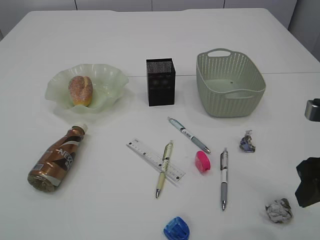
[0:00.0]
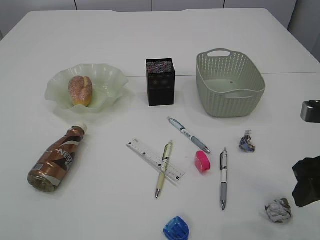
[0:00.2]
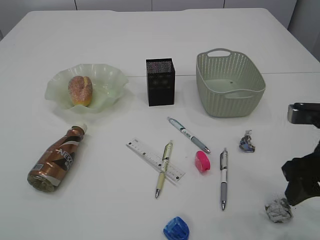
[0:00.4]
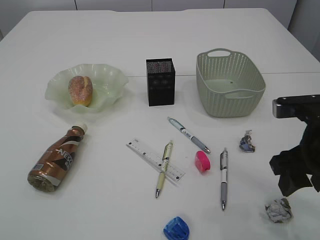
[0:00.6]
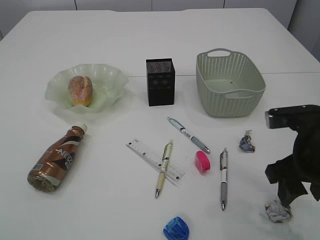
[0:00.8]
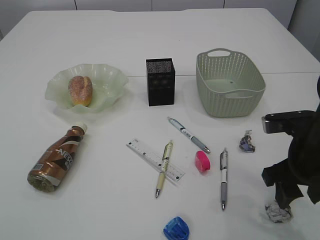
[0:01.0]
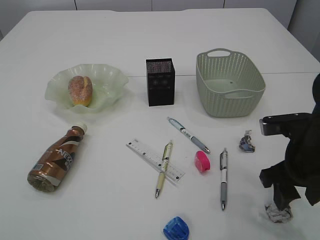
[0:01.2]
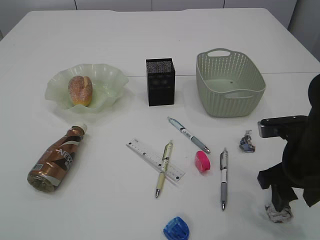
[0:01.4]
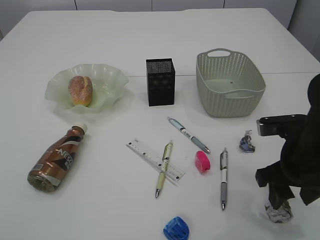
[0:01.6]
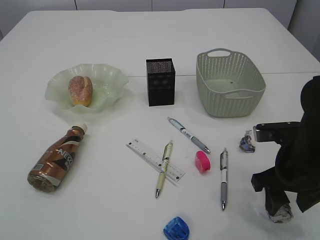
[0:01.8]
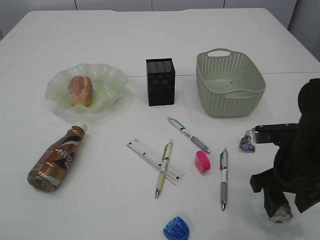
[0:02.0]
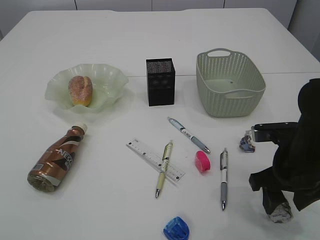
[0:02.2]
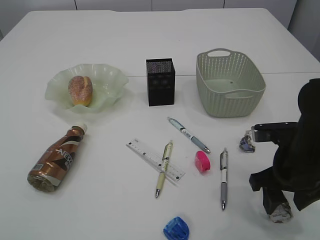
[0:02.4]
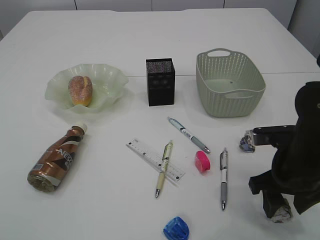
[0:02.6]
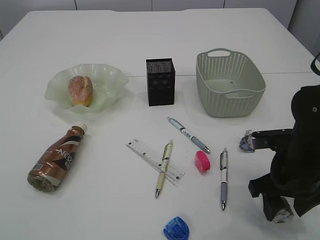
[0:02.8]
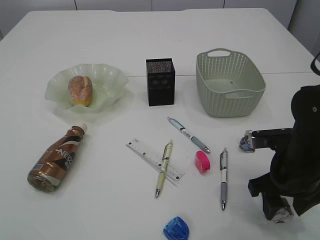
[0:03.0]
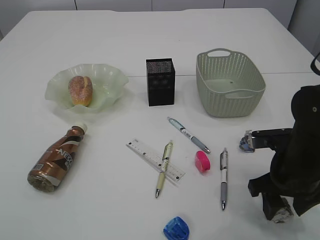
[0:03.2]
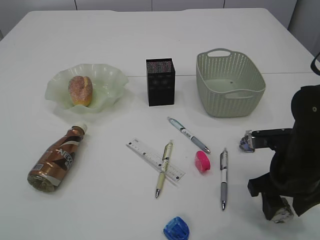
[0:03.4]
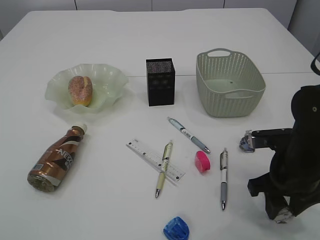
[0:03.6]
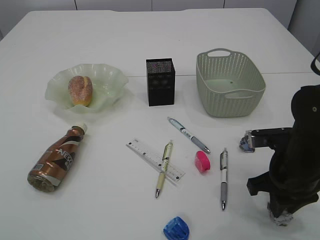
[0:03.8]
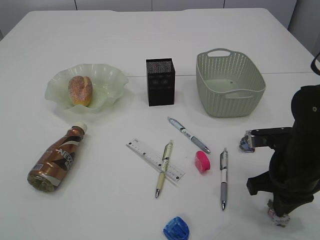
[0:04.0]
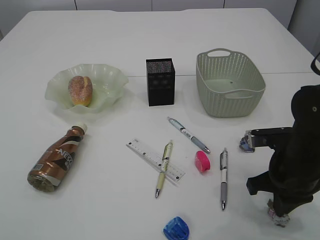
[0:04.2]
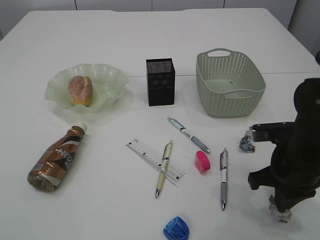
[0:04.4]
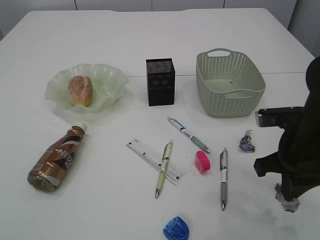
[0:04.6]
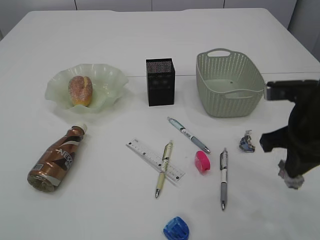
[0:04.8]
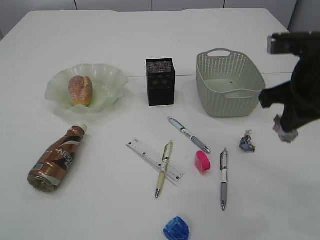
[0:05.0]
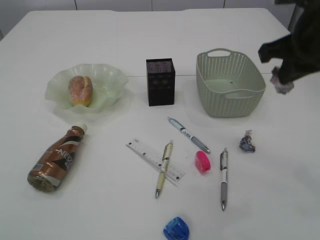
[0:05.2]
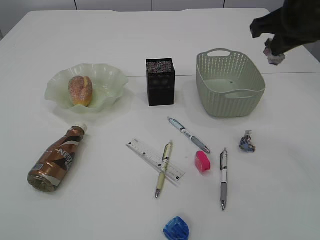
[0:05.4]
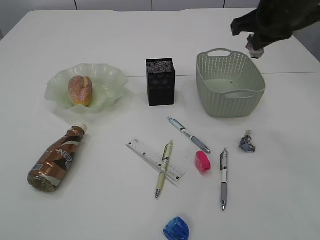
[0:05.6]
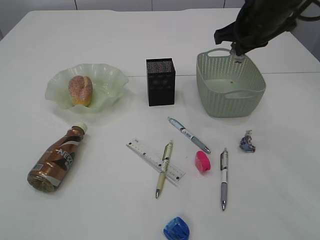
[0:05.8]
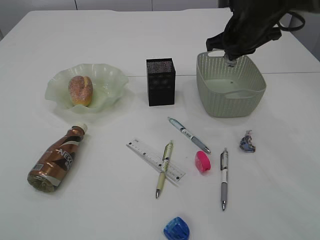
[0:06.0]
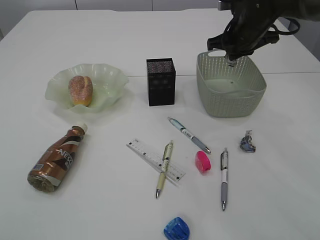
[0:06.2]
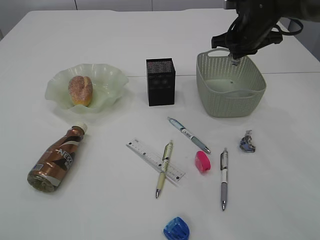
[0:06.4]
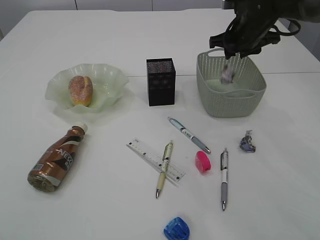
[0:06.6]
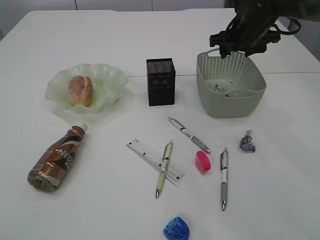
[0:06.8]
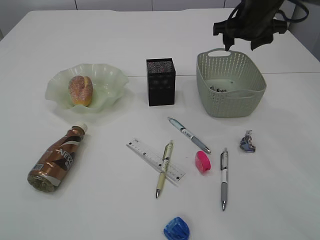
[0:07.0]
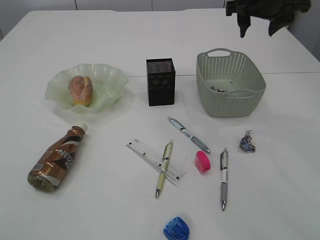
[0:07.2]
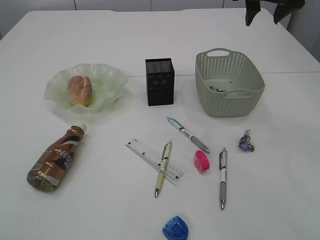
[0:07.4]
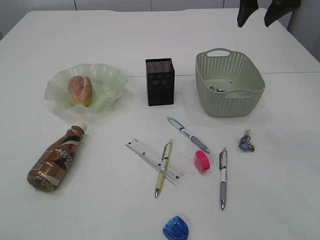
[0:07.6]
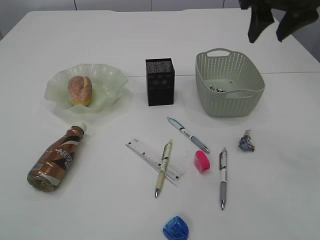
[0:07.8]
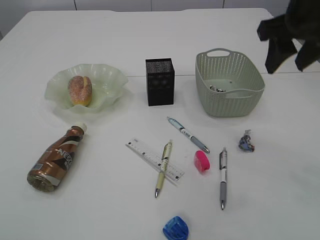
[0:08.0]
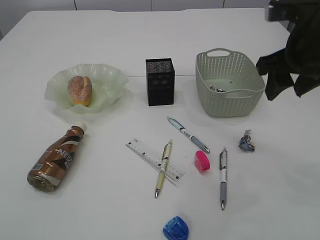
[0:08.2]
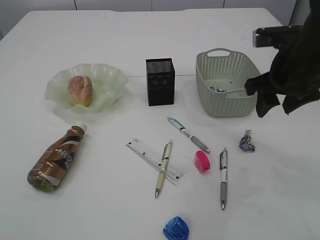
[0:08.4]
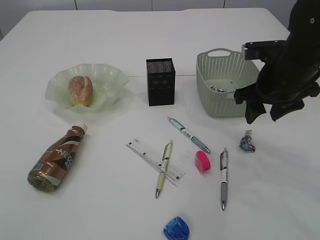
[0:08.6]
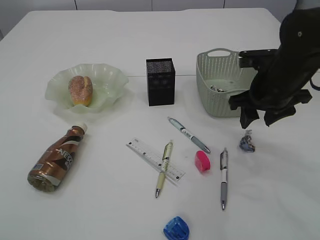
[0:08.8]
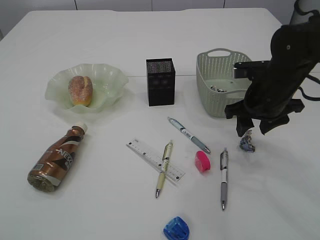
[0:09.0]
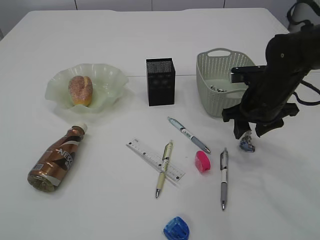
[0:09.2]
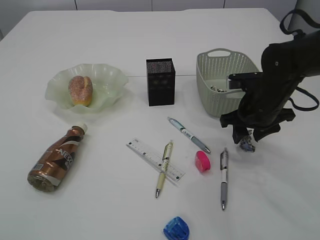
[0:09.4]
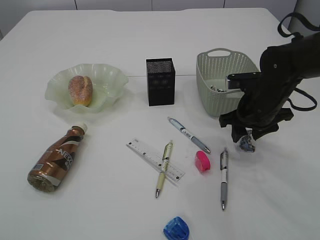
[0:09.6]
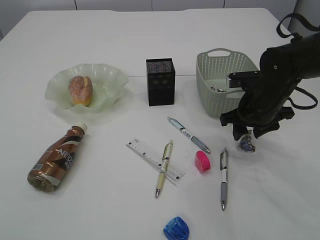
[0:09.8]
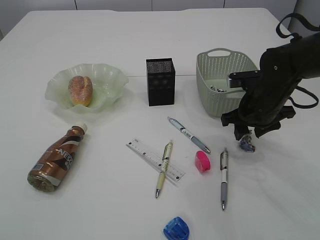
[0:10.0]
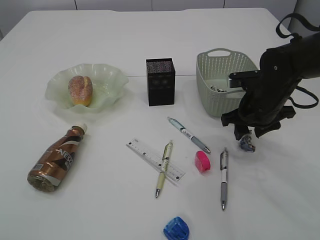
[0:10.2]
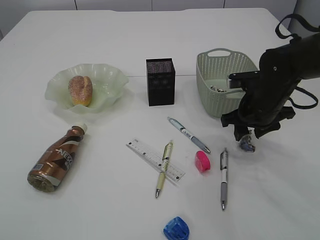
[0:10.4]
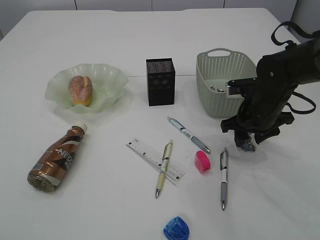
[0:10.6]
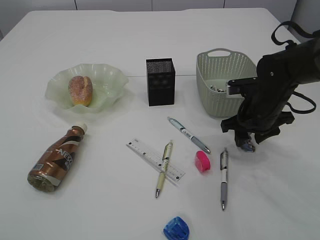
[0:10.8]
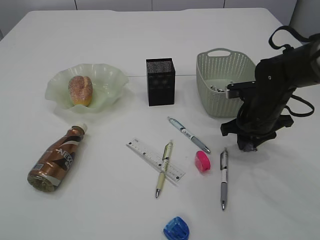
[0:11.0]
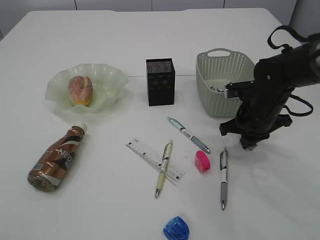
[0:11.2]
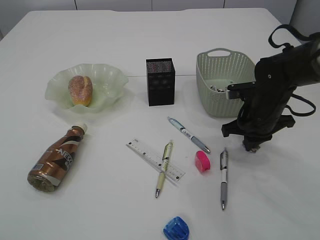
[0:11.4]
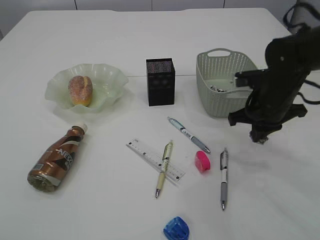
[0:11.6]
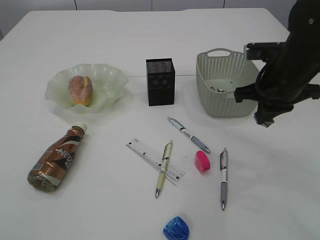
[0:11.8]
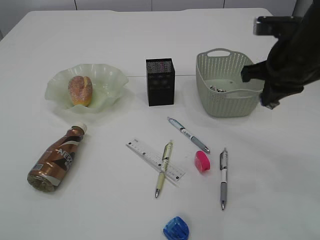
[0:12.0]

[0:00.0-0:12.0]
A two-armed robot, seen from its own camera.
Step, 0:00.0 to 0:04.8: Pick up the waste paper.
Step, 0:05.0 to 0:07.0: Place the waste paper in the basket.
Step, 0:07.2 to 0:11.8: Pick up the waste paper.
0:00.0 to 0:01.6: The right gripper moves downward and forward, roughly 10 cm.
0:01.6 to 0:03.0: The grippers make only small movements.
0:03.0 to 0:04.4: The right gripper closes its fingers.
0:04.4 to 0:06.0: The right gripper moves forward and upward, approximately 25 cm.
0:06.0 to 0:07.6: The right gripper goes approximately 10 cm upward, and opens up.
0:07.6 to 0:09.0: The right gripper shifts some 20 cm downward.
0:09.0 to 0:10.4: The grippers stay close to where they were, moving slightly.
0:10.4 to 0:12.0: The right gripper is displaced upward by roughly 10 cm, and closes up.

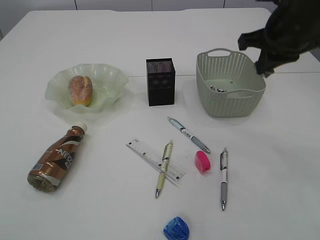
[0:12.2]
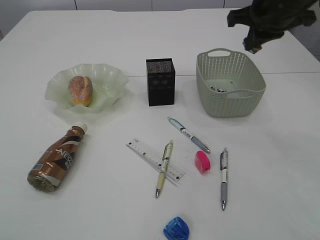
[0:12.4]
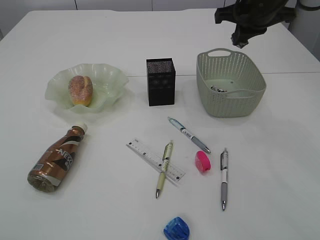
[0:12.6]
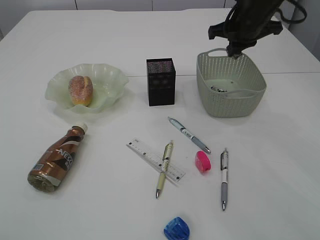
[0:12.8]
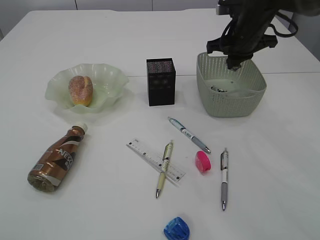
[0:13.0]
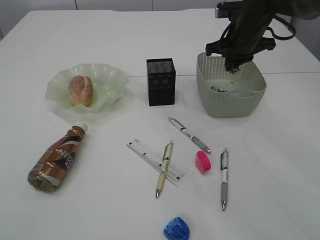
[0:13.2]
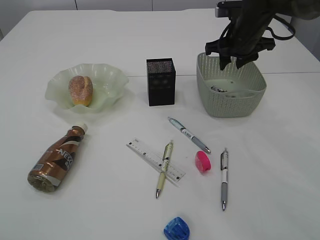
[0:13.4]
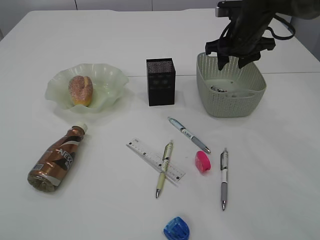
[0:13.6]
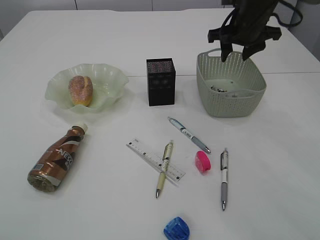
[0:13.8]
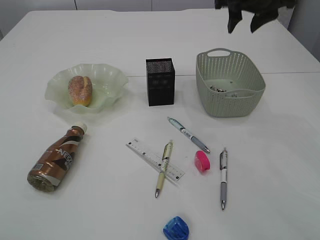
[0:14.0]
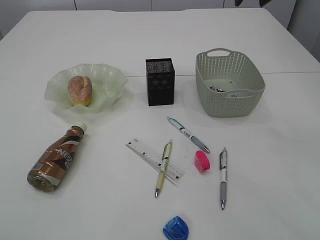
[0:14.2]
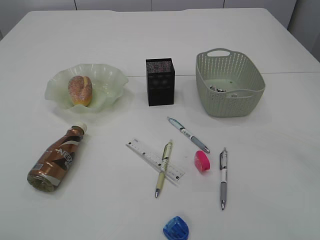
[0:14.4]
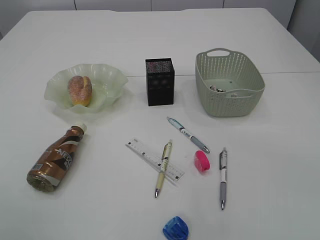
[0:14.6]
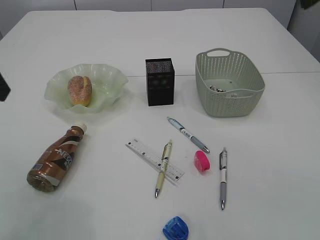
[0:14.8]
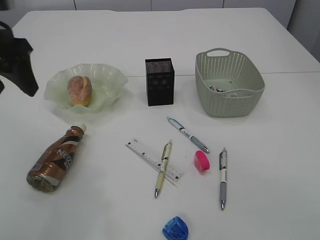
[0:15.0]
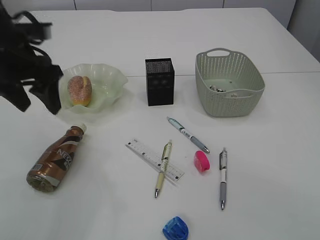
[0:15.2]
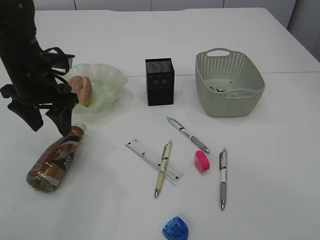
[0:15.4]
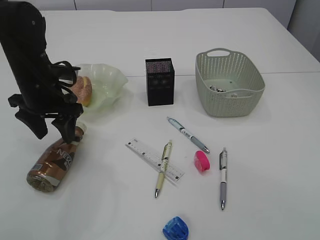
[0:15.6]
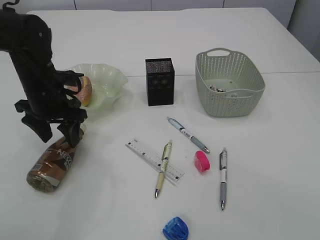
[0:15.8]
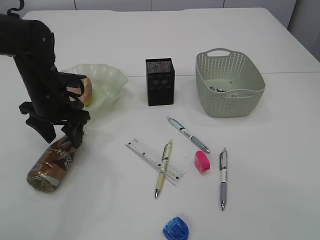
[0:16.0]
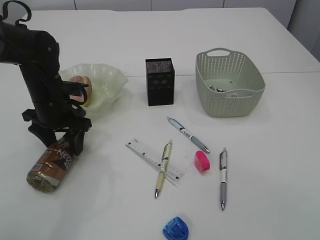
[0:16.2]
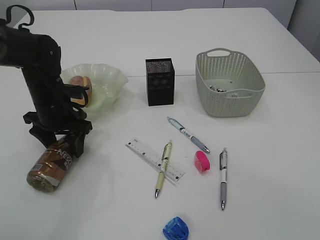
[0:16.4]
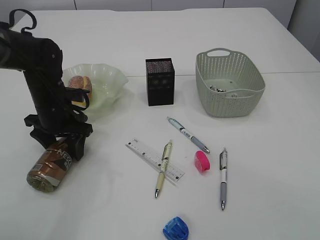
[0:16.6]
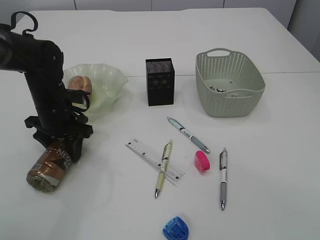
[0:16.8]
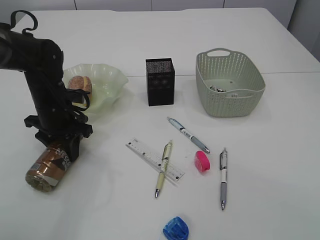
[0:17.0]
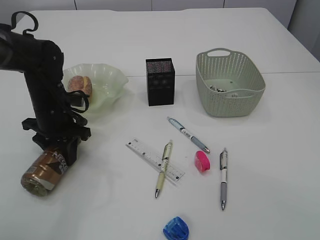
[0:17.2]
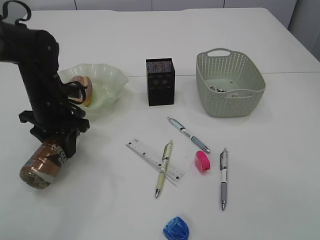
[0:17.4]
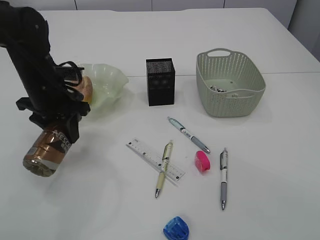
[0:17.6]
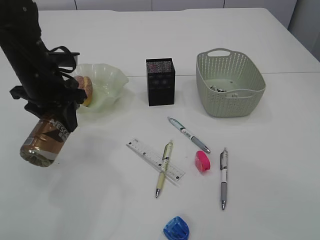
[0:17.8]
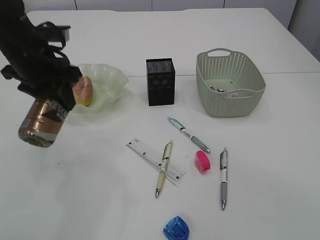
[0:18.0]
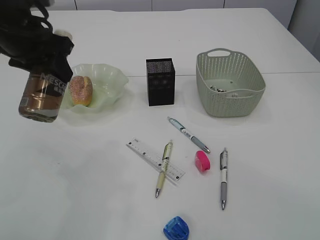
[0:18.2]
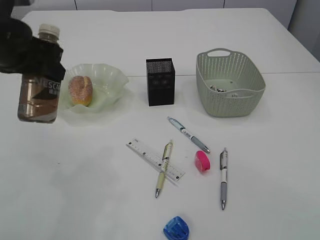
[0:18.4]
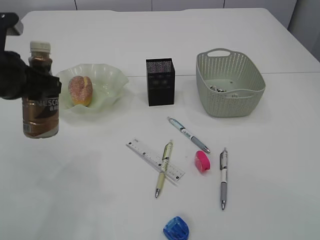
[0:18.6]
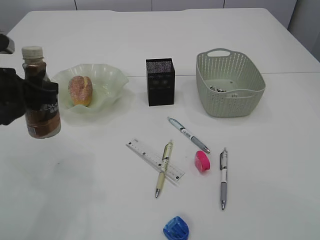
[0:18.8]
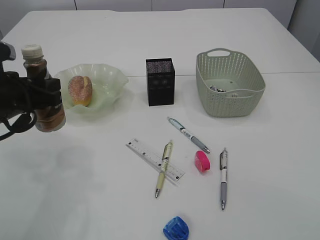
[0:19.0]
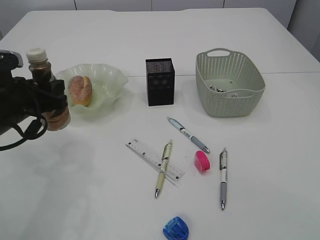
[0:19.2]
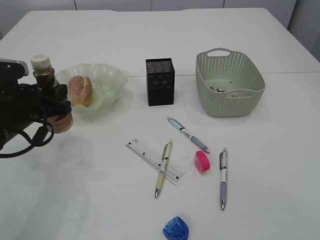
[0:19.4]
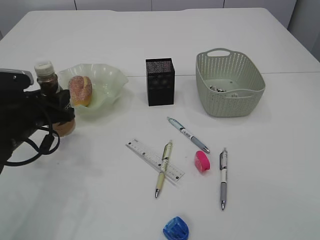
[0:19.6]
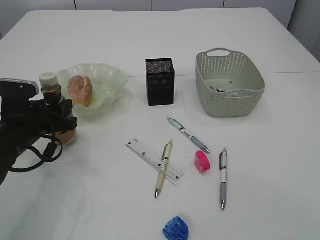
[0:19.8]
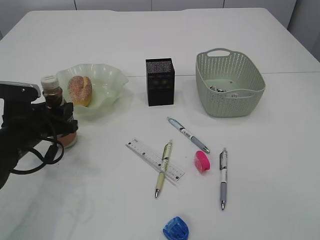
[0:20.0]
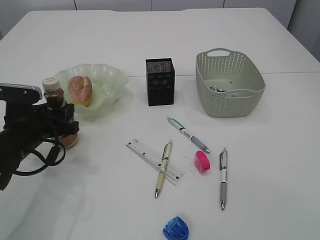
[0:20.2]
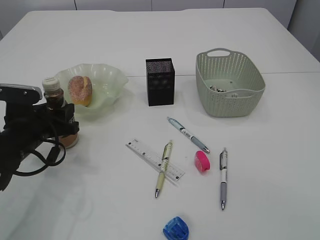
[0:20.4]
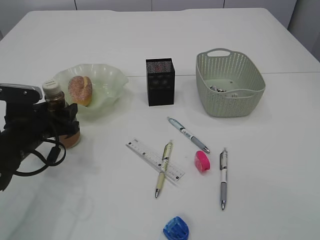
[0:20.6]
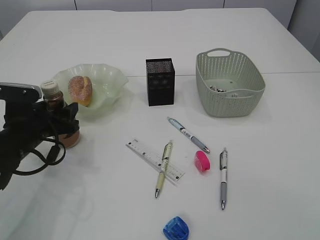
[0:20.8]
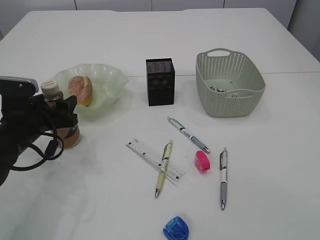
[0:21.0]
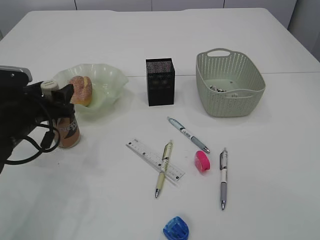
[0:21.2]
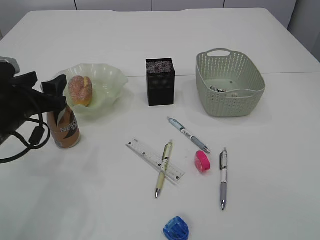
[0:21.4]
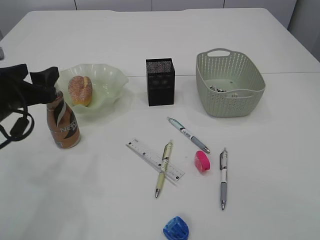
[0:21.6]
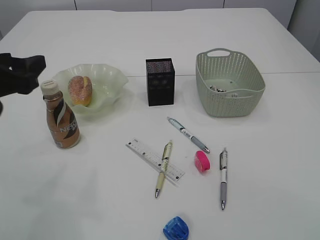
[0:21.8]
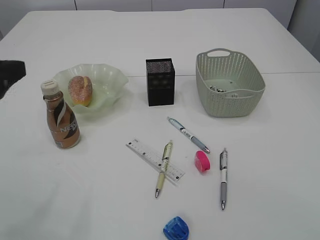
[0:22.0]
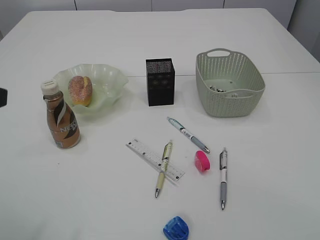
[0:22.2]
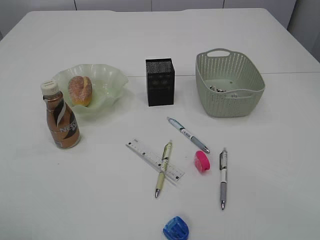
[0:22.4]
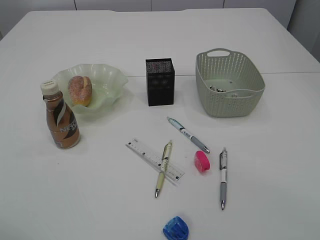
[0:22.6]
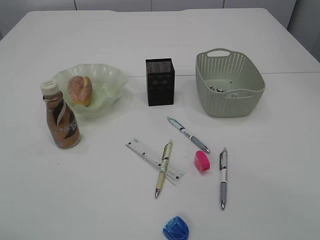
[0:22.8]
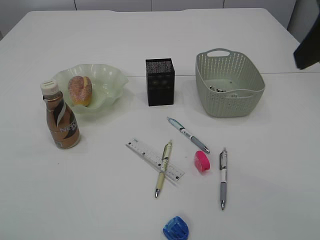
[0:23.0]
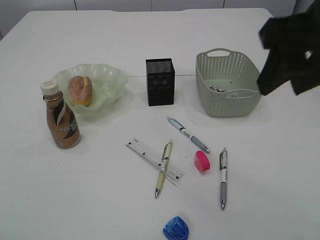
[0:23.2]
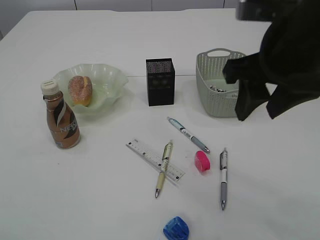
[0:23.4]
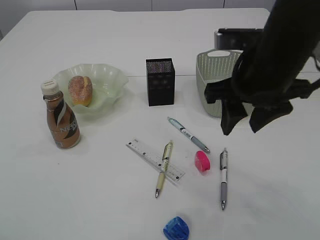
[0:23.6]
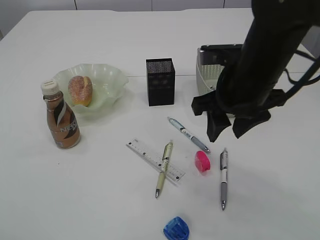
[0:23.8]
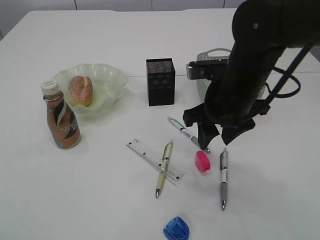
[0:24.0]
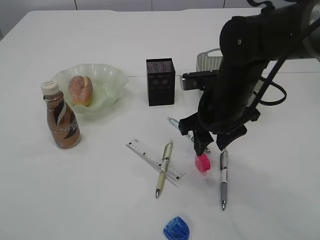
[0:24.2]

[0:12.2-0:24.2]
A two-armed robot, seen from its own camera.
Step, 0:12.2 to 0:13.8: Place the waste paper in the basket.
Step, 0:14.0 to 0:17.8: Pick up the bottle with the left arm.
Step, 0:18.0 to 0:21.6: Place the bottle.
0:12.2 to 0:13.8: The right gripper moves forward, some 15 cm, and opens up.
0:13.8 to 0:15.2: The left gripper goes roughly 30 cm forward and downward. Meanwhile the right gripper is displaced backward and upward by about 35 cm.
0:15.2 to 0:16.6: The left gripper is displaced downward by approximately 15 cm.
0:16.6 to 0:18.2: The left gripper is displaced upward by some 15 cm, and closes.
0:18.2 to 0:19.8: The left gripper is displaced downward by approximately 20 cm.
0:19.8 to 0:21.2: The left gripper opens up.
0:21.2 to 0:22.6: The left gripper moves upward and backward, approximately 25 cm.
0:22.6 to 0:24.2: The right gripper shifts approximately 35 cm downward, forward and to the left.
